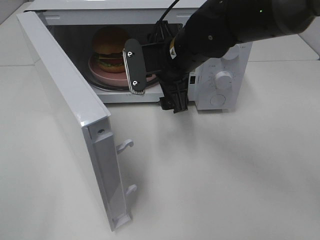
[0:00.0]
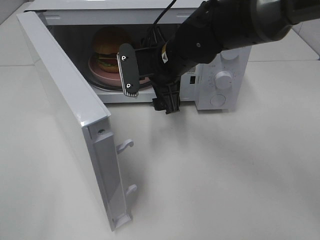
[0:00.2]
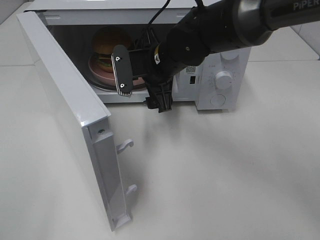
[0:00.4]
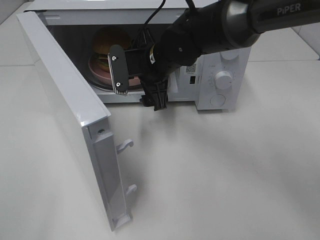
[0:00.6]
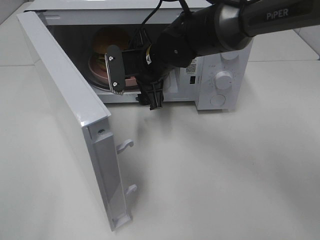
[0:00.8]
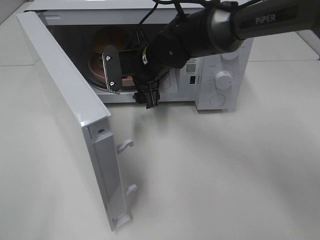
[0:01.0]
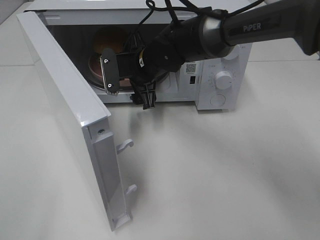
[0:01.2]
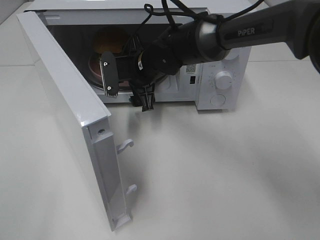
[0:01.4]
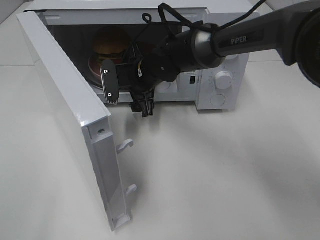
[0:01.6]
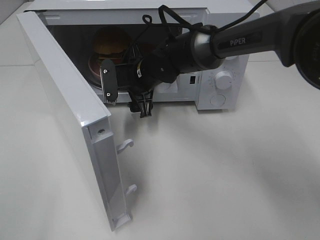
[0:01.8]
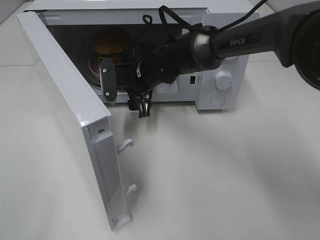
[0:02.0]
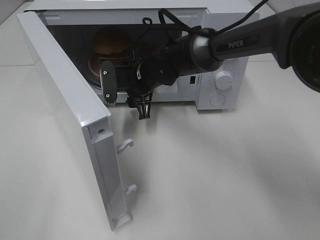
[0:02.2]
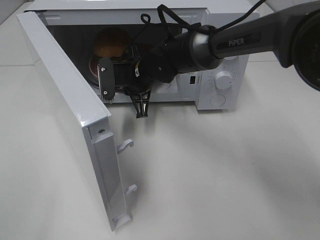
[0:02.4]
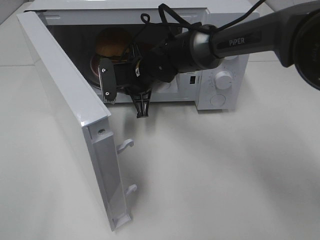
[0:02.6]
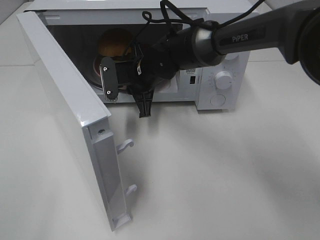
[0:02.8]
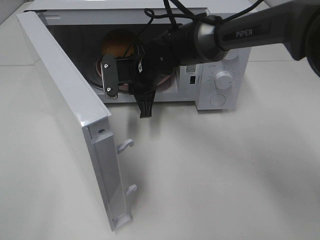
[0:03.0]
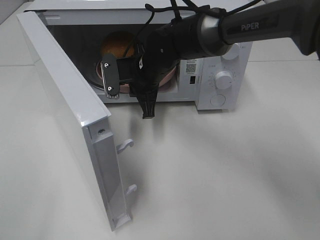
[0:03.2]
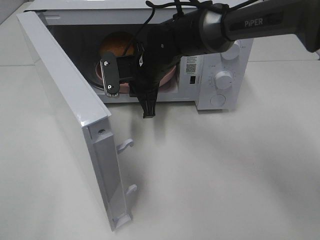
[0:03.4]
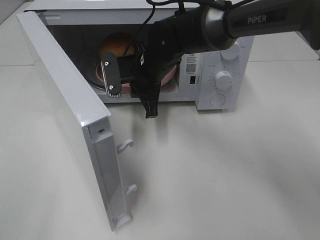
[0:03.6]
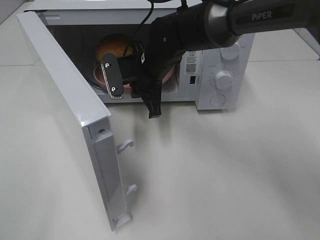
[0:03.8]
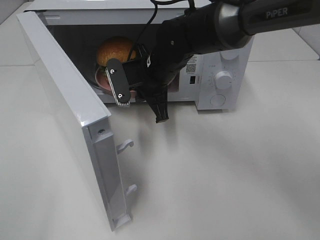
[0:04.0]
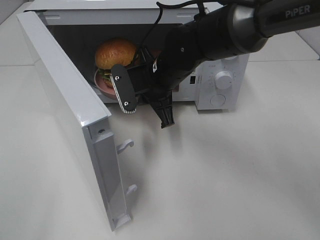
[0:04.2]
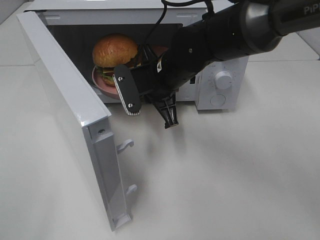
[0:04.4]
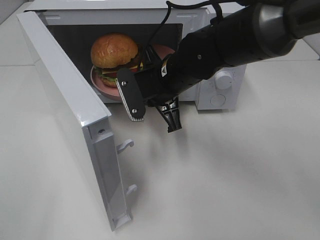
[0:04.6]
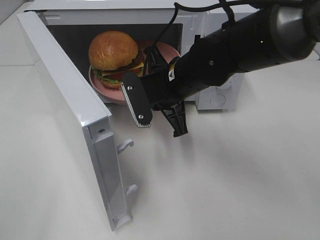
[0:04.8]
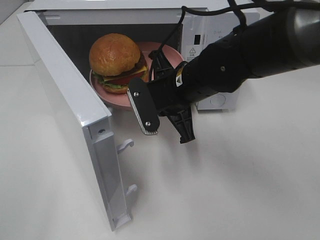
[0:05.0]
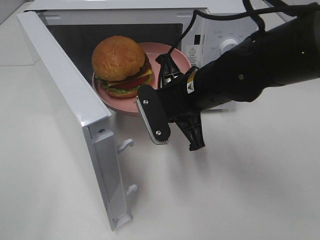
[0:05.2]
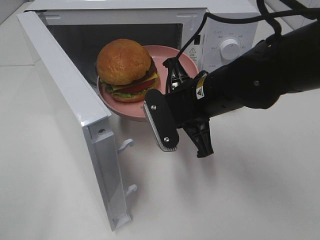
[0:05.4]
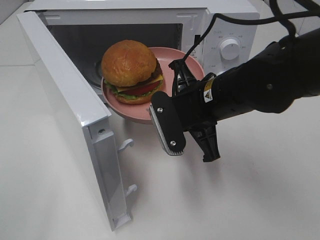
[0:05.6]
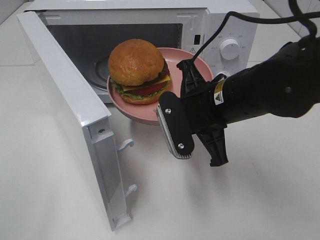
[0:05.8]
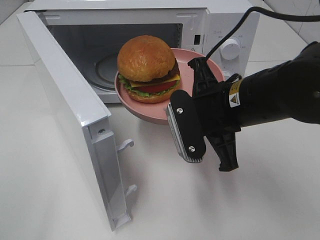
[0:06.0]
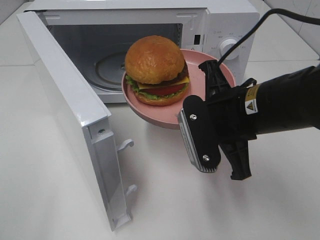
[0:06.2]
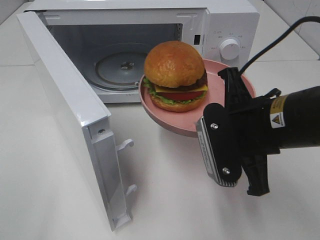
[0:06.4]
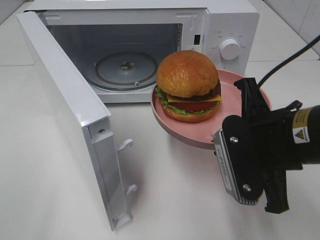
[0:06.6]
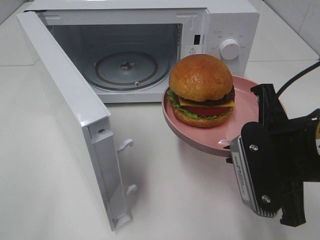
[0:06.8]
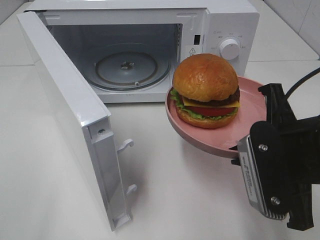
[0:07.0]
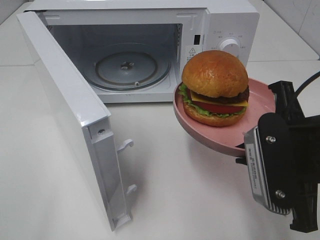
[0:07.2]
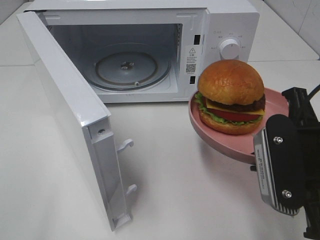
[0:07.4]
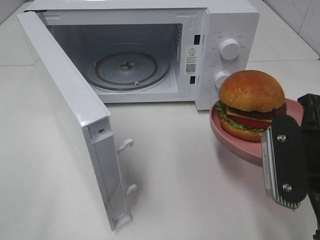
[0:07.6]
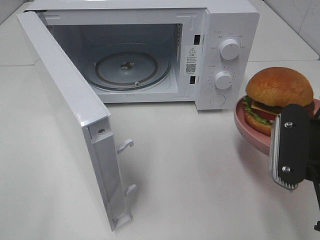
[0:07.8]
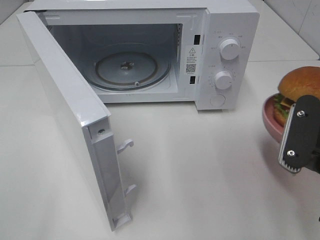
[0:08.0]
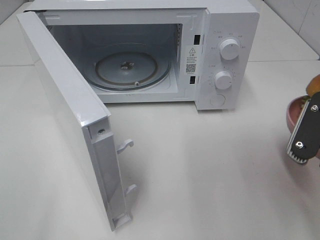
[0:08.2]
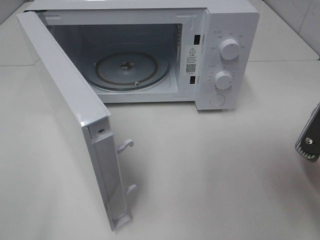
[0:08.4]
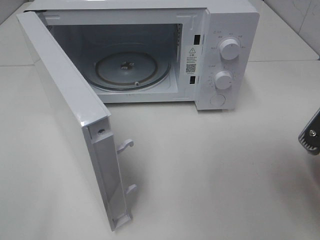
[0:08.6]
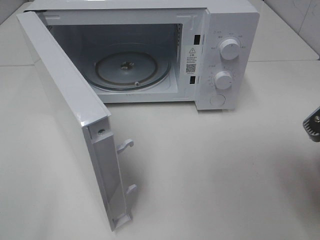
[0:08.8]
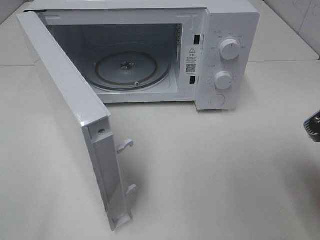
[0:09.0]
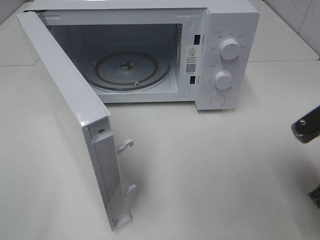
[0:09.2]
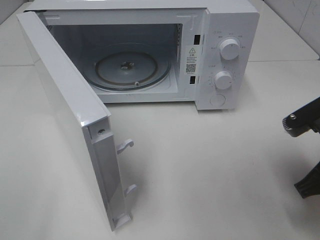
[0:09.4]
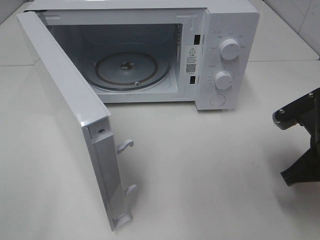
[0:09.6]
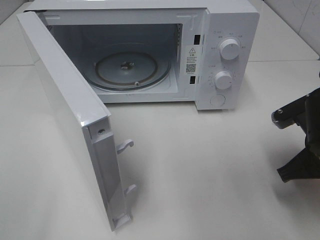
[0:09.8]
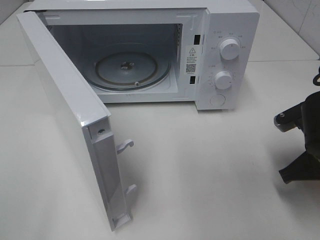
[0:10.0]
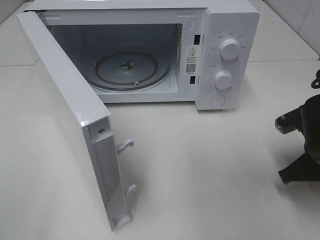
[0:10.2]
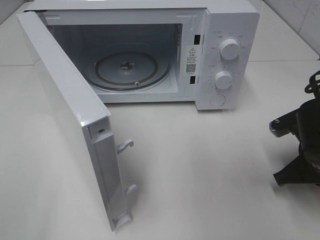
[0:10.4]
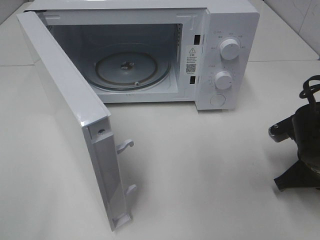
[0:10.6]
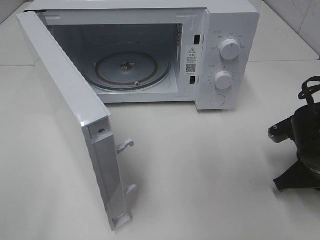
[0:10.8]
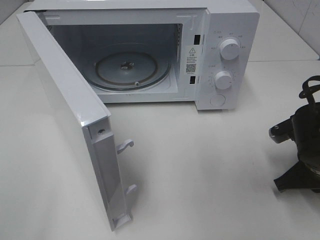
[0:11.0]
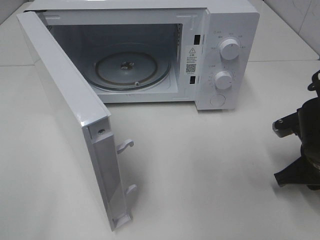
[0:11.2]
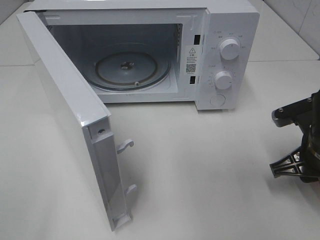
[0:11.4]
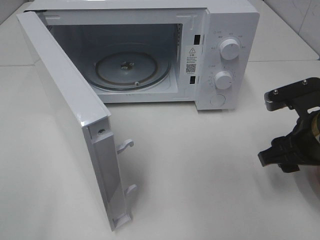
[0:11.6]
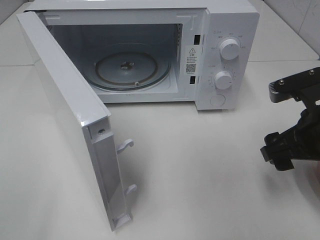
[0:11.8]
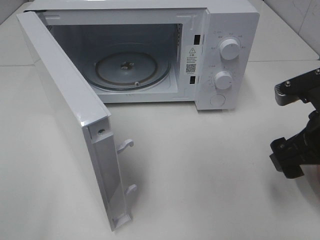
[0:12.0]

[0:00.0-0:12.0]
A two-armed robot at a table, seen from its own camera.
Task of the whole recording: Heat the burger.
Step, 0:00.0 to 0:02.4: Right hand: grab the plate with the hamburger.
Step, 0:02.6 to 0:11.0: Right hand: place the plate on the table.
0:00.0 to 0:01.6: The right gripper is displaced downward, forward and to the left by roughly 10 cm.
0:01.6 to 0:03.0: The right gripper closes up.
0:03.0 to 0:04.4: The right gripper moves backward, roughly 5 cm.
0:04.4 to 0:06.0: The right gripper travels backward and to the right by some 15 cm.
0:06.0 to 0:07.6: The right gripper shifts roughly 15 cm backward and to the right.
0:09.0 to 0:10.4: The right gripper shifts some 15 cm downward and forward.
0:10.4 to 0:12.0: The right gripper shifts roughly 10 cm upward, and opens up.

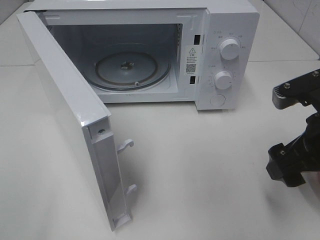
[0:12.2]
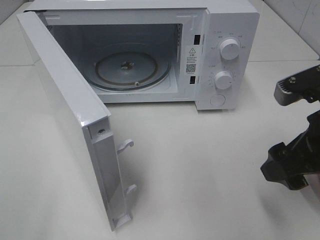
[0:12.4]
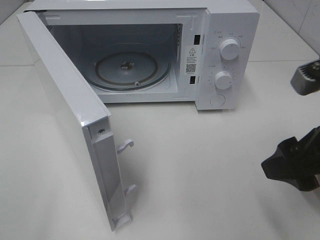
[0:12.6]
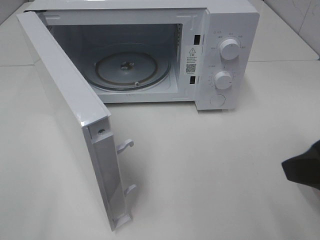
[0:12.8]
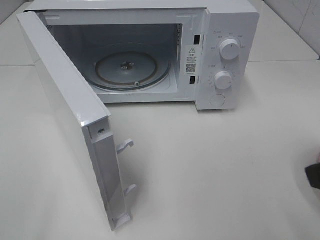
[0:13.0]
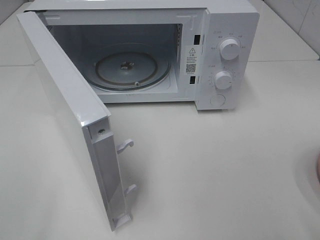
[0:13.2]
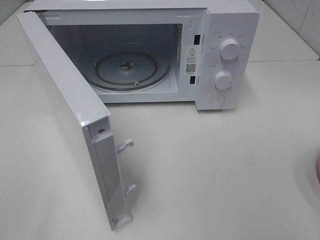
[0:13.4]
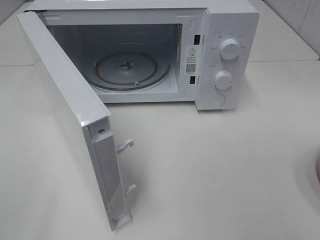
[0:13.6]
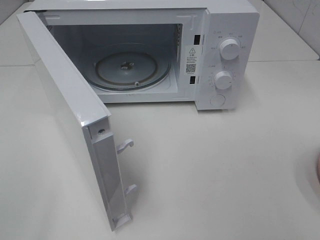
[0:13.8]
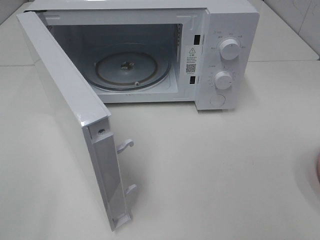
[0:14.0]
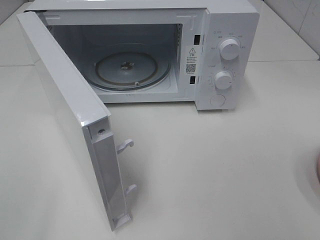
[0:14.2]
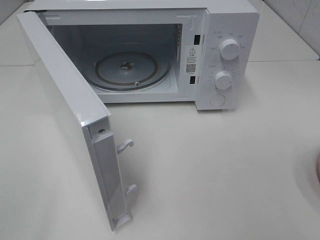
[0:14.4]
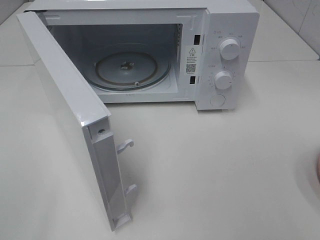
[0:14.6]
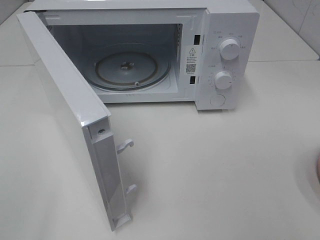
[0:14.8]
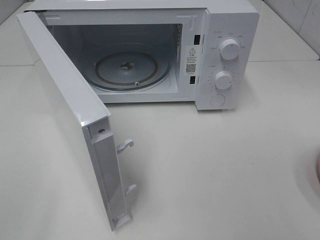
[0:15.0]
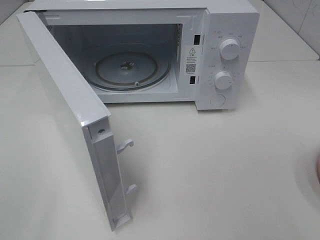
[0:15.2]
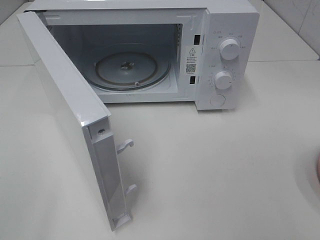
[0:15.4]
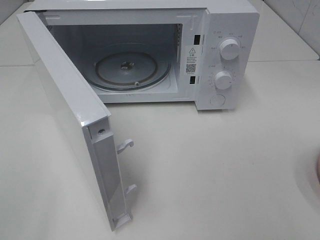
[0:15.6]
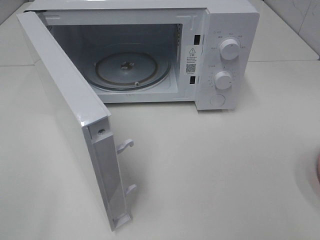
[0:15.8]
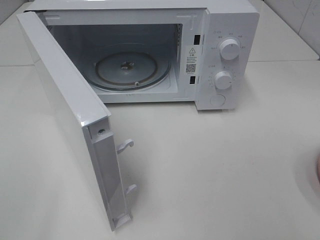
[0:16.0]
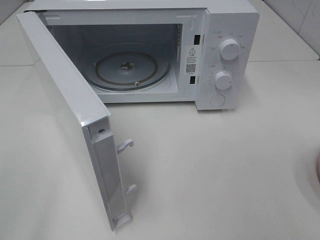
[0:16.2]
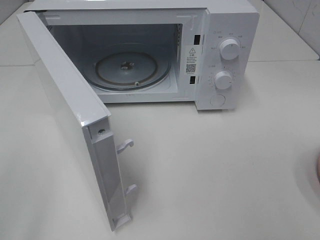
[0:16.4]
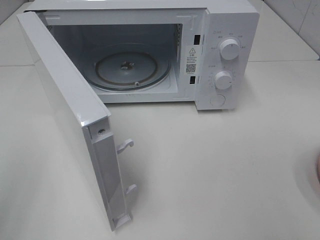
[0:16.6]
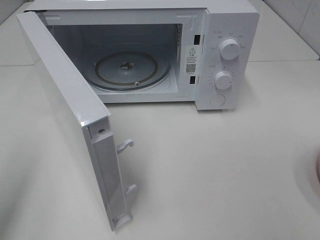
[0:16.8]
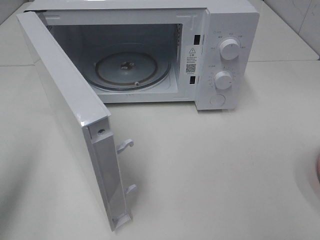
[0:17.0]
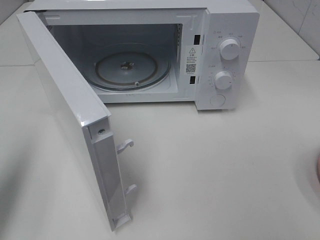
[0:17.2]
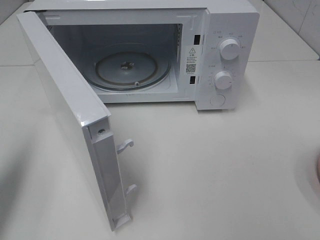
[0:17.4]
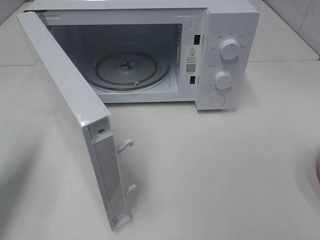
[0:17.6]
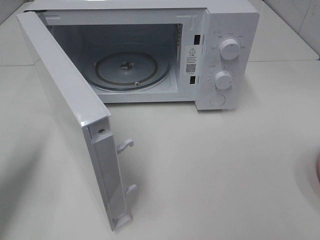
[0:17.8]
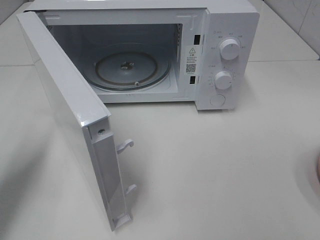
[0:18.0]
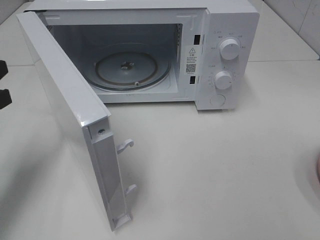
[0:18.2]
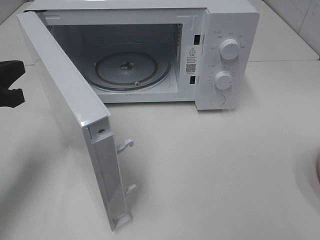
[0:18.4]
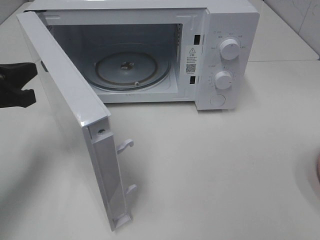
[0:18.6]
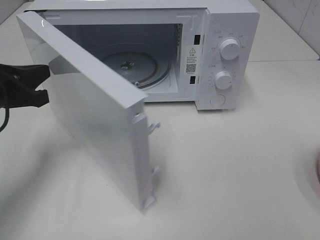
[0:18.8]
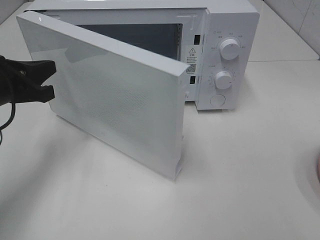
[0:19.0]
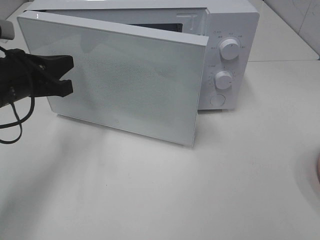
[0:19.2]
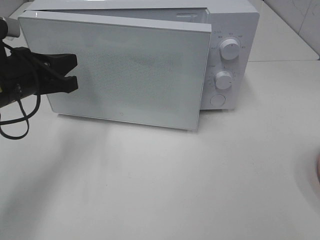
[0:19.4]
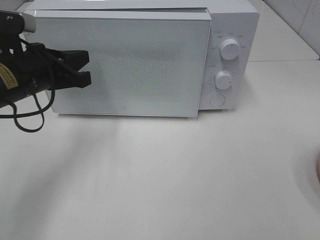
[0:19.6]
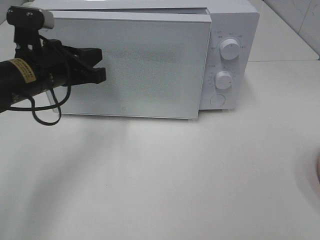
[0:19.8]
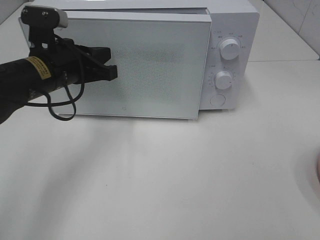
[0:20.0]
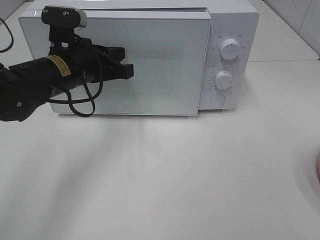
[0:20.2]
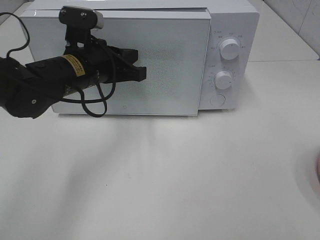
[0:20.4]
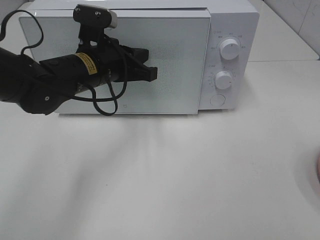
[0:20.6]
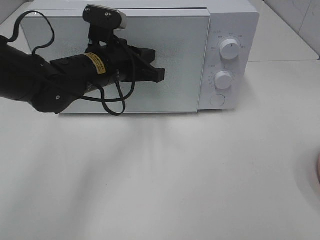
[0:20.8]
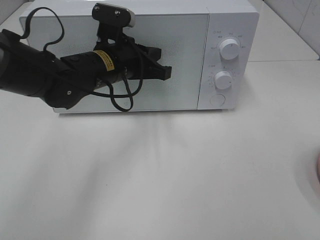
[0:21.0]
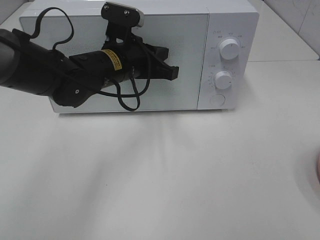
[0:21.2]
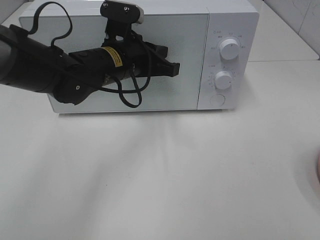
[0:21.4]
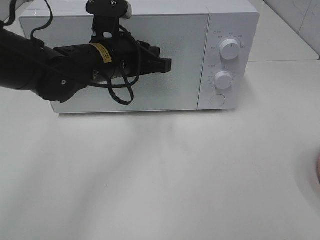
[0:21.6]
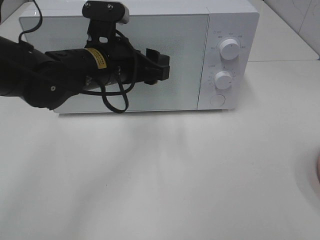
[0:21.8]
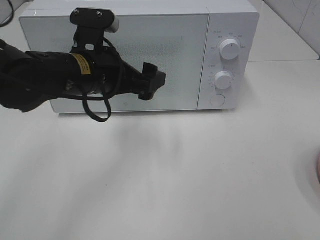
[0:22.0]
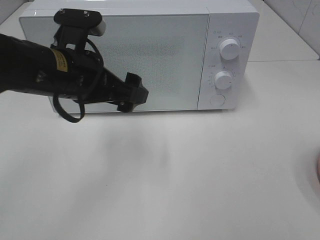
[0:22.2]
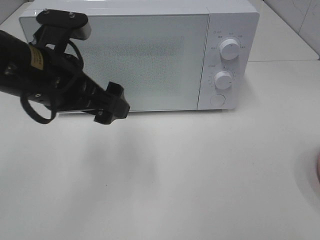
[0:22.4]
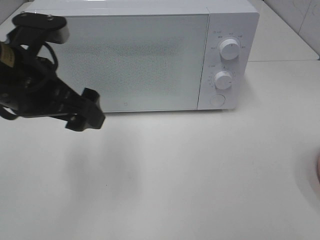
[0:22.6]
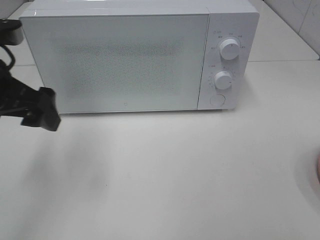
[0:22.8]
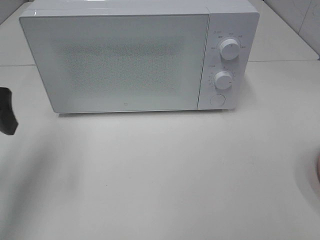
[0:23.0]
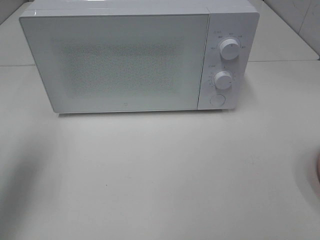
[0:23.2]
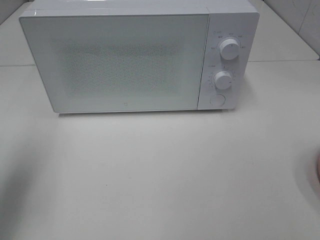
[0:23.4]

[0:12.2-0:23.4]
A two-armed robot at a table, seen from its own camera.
Task of the whole recording: Heat the burger.
Step, 0:12.2 to 0:21.0: Left hand: close the microwave door.
0:12.2 to 0:13.8: The right gripper heads backward and upward, covering roughly 20 cm.
0:13.8 to 0:15.4: Both grippers stay put.
0:15.4 to 0:17.0: The left gripper shifts roughly 15 cm forward, and closes up.
0:17.0 to 0:18.6: The left gripper is displaced forward and downward by about 20 cm.
0:18.6 to 0:20.2: The left gripper moves to the right and forward, about 15 cm.
0:20.2 to 0:21.8: The left gripper is displaced to the right by some 5 cm, and opens up.
0:21.8 to 0:23.4: The left gripper goes approximately 25 cm to the left and backward.
